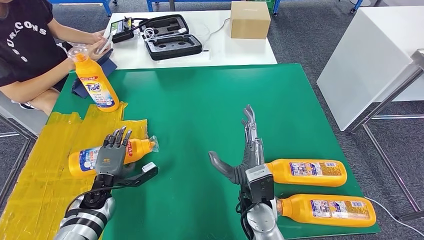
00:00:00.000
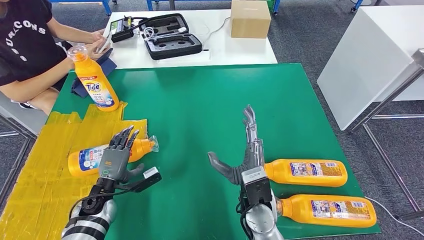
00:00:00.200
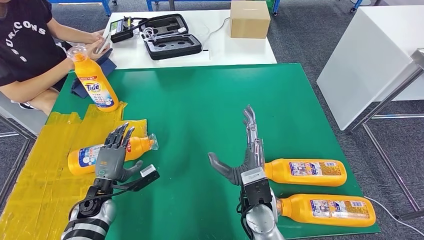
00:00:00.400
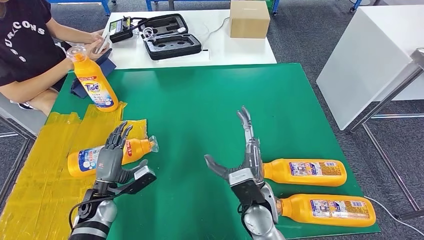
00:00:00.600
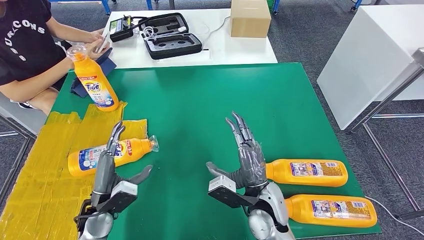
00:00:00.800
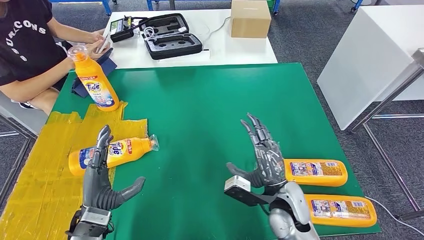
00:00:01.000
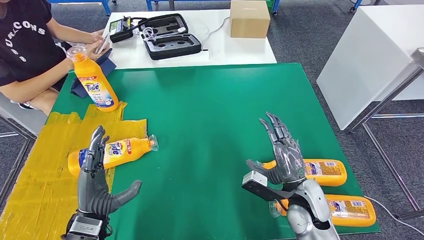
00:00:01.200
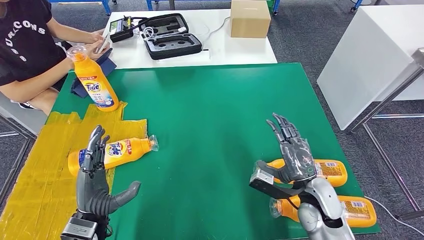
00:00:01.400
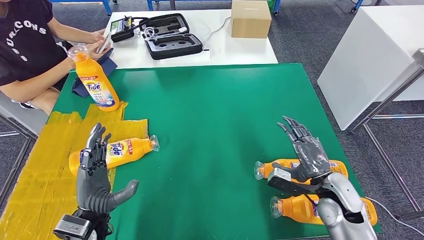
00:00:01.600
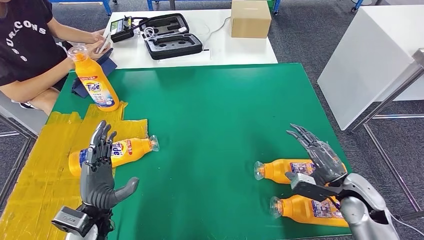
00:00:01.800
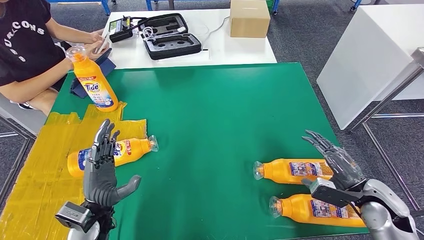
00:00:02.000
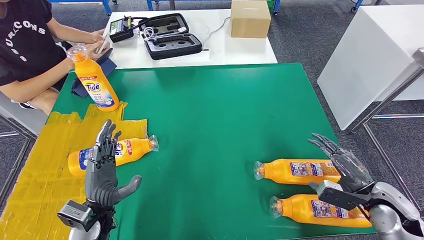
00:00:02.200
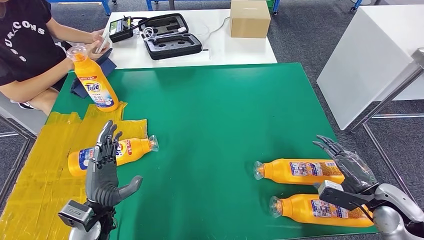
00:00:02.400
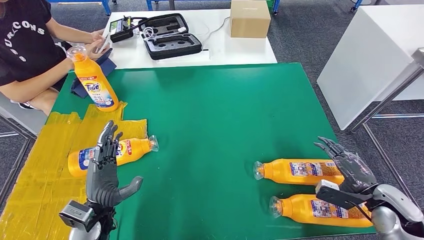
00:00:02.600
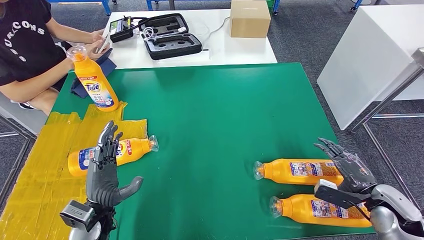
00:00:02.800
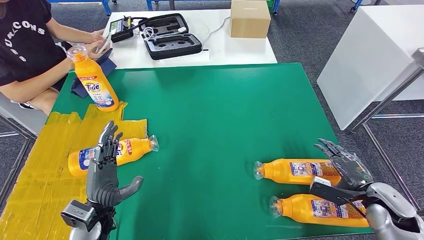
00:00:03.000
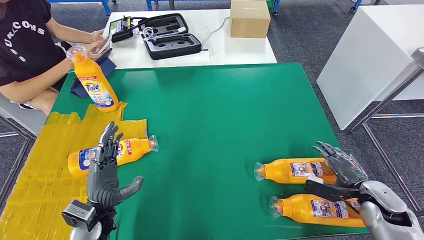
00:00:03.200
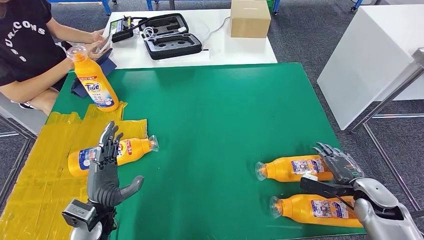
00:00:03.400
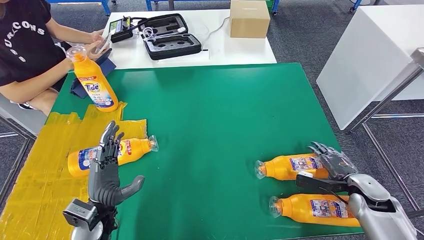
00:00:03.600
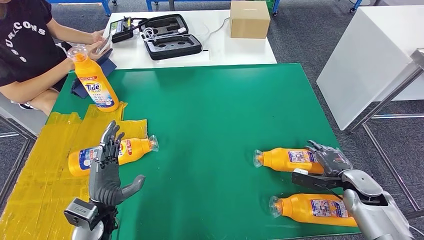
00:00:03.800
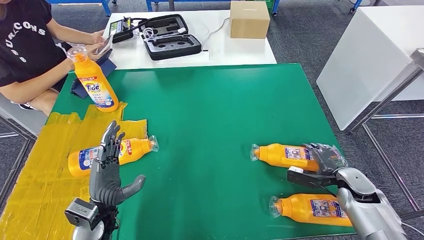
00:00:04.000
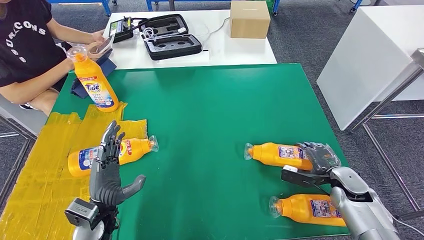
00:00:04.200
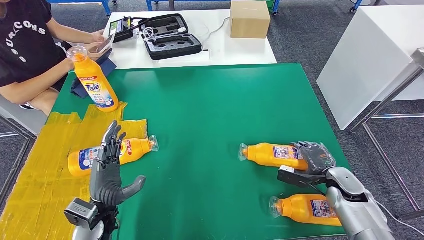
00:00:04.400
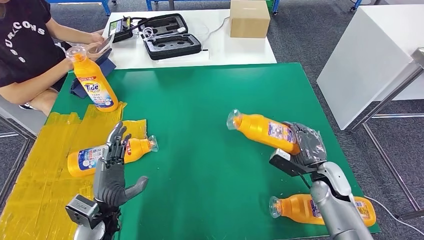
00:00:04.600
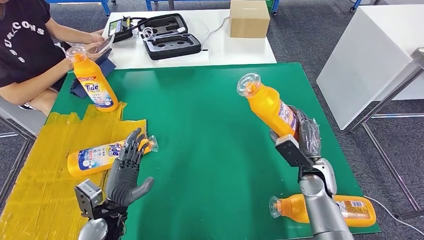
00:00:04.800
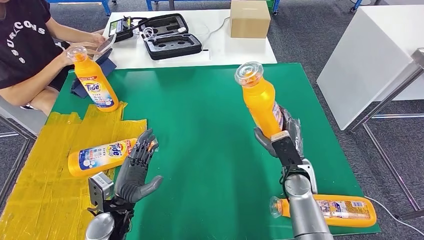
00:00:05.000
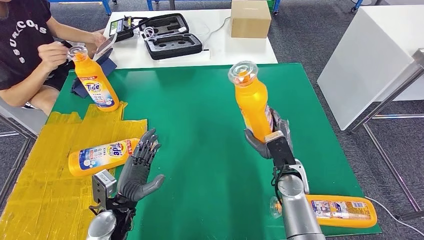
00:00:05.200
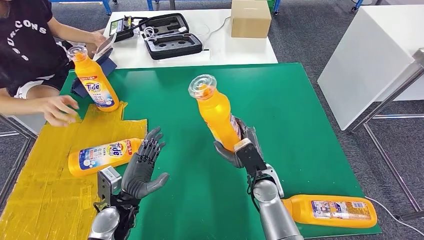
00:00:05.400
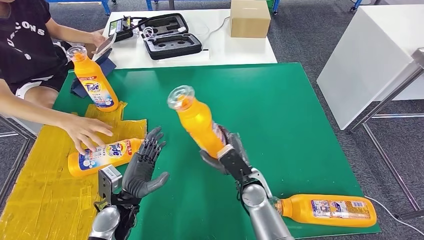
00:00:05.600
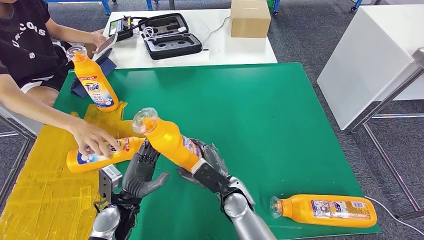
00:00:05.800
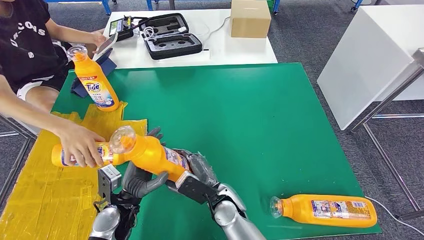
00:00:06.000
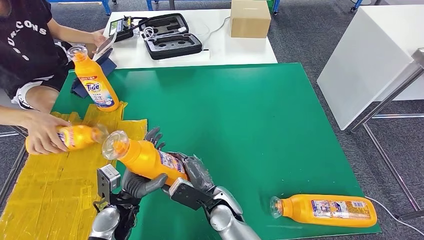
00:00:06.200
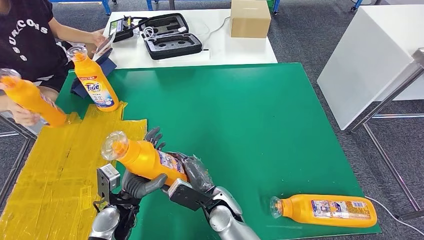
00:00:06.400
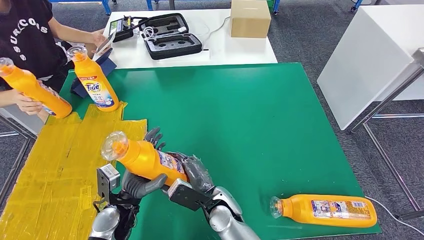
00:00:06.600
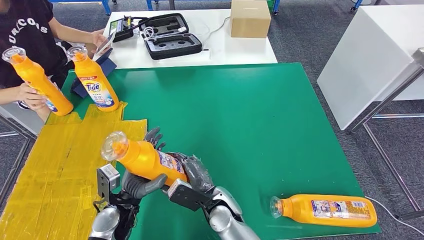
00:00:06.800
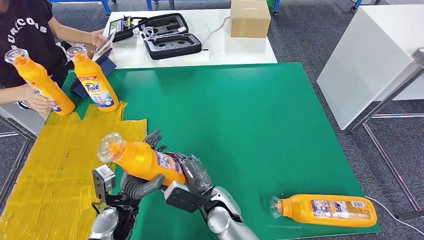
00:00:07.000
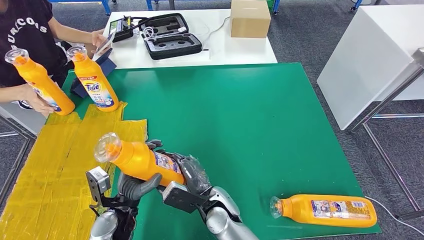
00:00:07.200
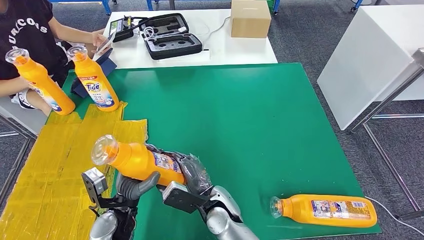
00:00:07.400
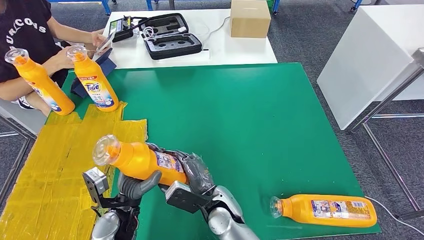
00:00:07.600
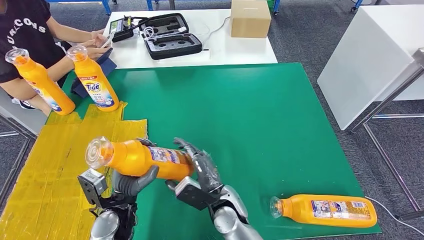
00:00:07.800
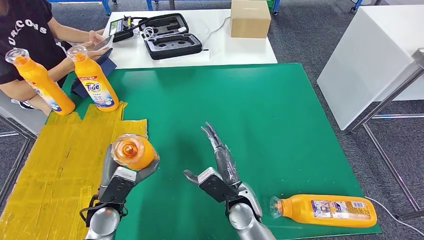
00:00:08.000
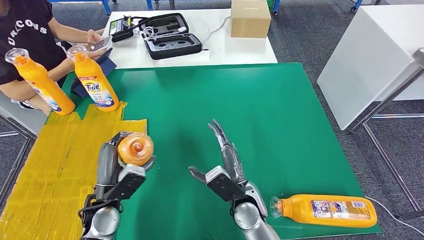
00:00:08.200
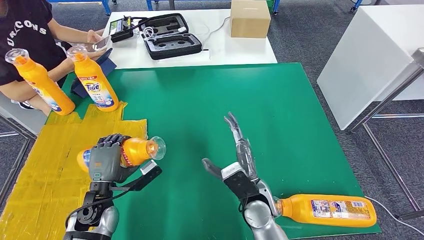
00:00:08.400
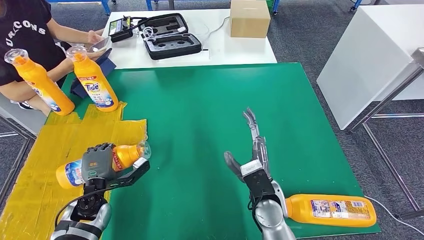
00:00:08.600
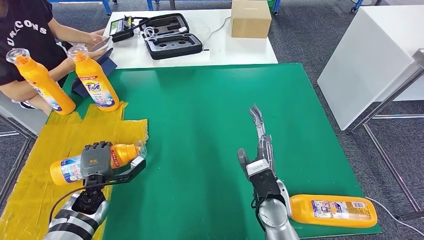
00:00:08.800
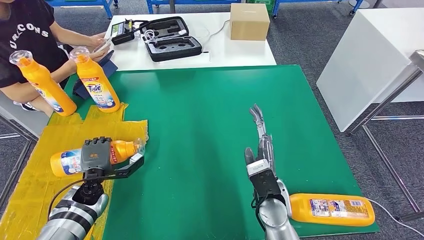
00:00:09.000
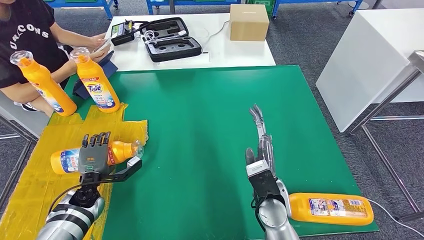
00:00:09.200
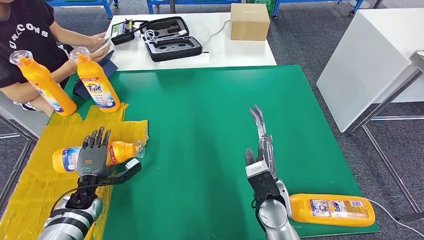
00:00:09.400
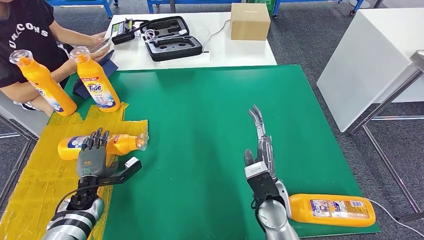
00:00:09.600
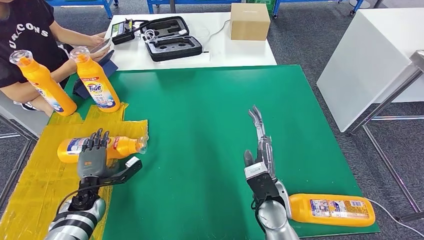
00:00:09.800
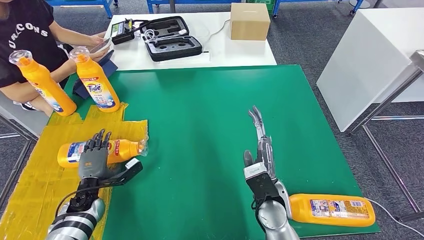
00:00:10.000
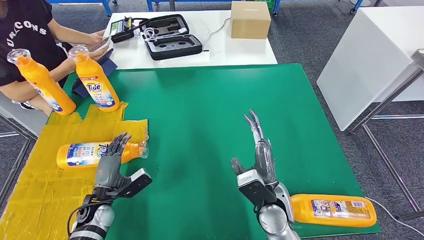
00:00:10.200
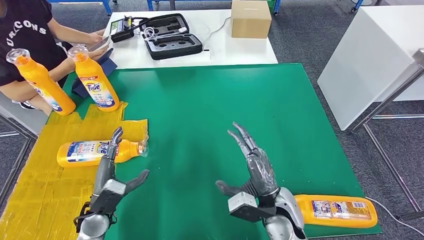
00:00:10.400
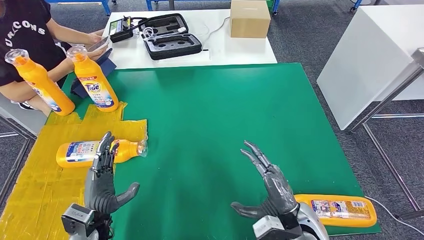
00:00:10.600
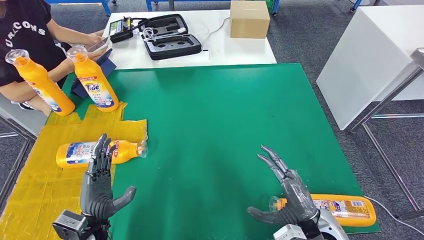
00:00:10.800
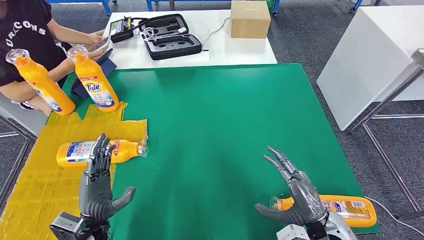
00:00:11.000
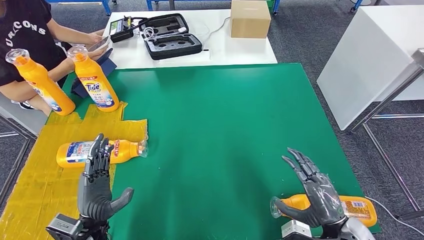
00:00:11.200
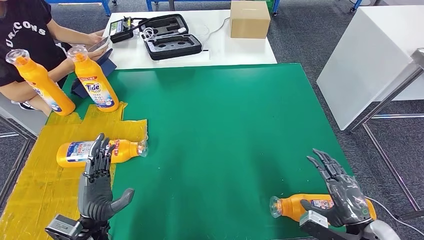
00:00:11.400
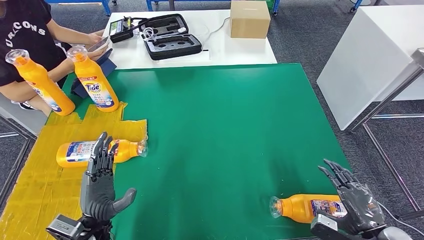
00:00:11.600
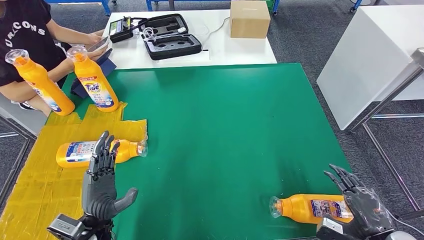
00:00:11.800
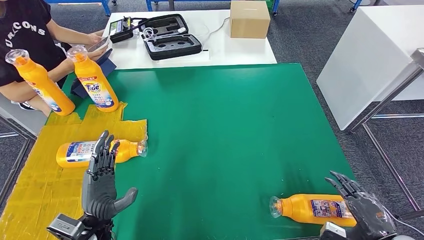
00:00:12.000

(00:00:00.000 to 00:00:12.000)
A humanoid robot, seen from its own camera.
Step, 00:00:00.800 - 00:00:07.200: Pick up the bottle from the table.
Step, 00:00:07.400 - 00:00:10.000: Flip the bottle to face forward.
00:00:00.000 - 00:00:01.600: The left hand shifts about 15 cm backward and upward. The right hand shifts roughly 20 cm to the right.
00:00:01.600 - 00:00:03.000: The right hand travels to the right by some 15 cm.
00:00:03.000 - 00:00:04.400: The right hand moves forward and to the left, approximately 10 cm.
00:00:06.000 - 00:00:07.600: The hands stay close to where they were, moving slightly.
00:00:10.400 - 00:00:12.000: The right hand travels to the right and backward by approximately 25 cm; the left hand ends up some 5 cm from where it was.

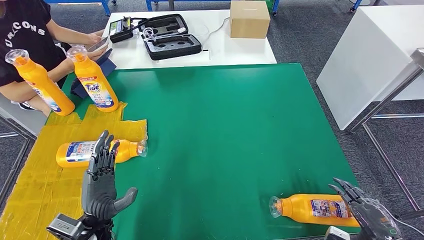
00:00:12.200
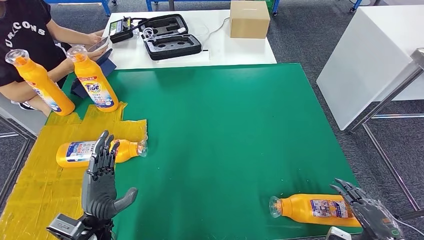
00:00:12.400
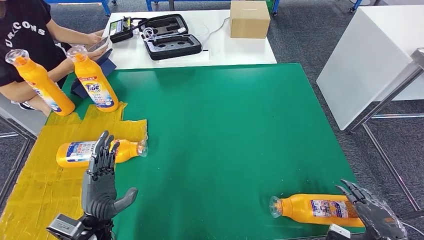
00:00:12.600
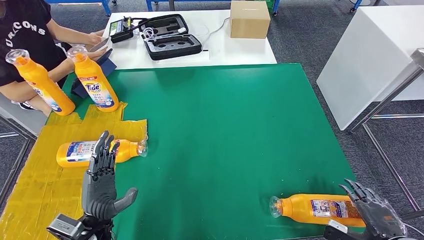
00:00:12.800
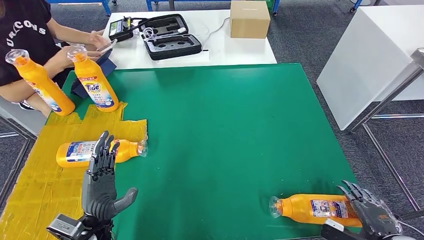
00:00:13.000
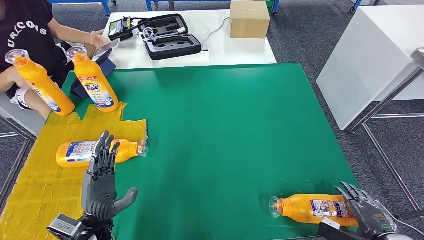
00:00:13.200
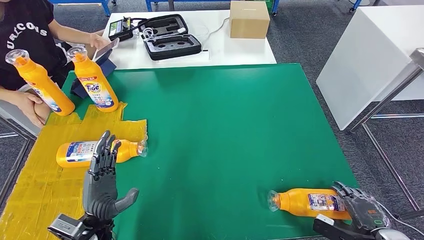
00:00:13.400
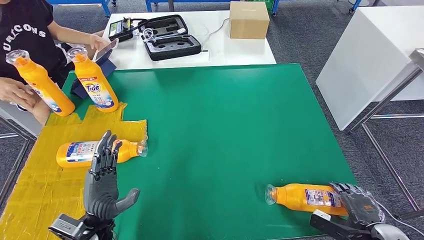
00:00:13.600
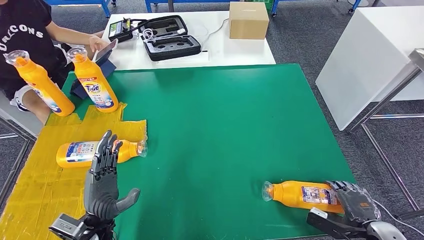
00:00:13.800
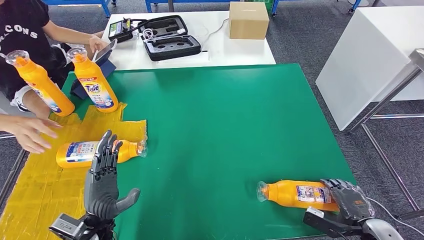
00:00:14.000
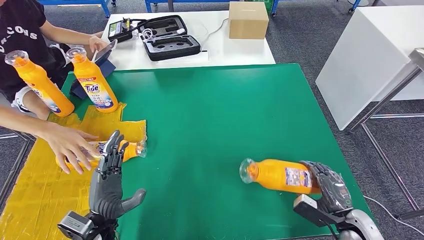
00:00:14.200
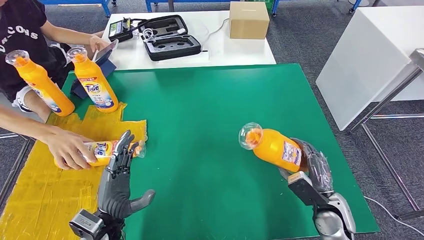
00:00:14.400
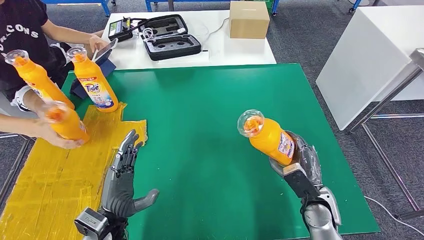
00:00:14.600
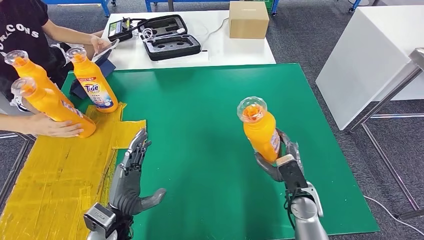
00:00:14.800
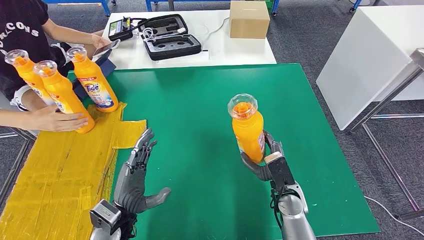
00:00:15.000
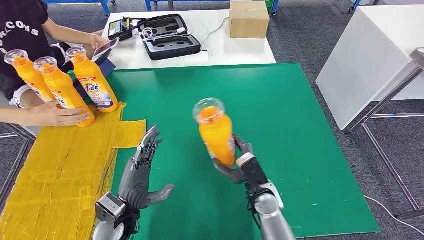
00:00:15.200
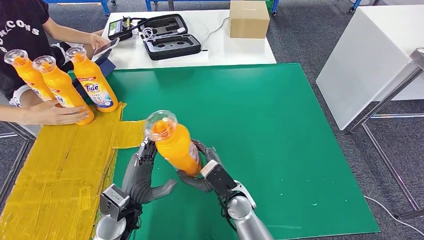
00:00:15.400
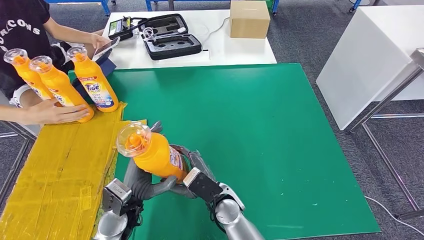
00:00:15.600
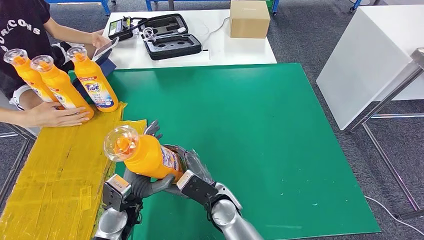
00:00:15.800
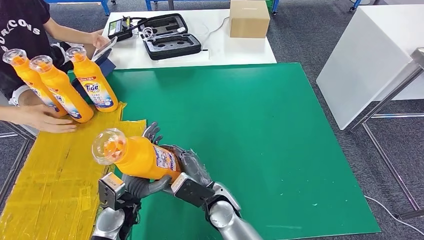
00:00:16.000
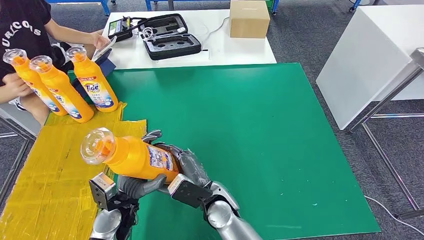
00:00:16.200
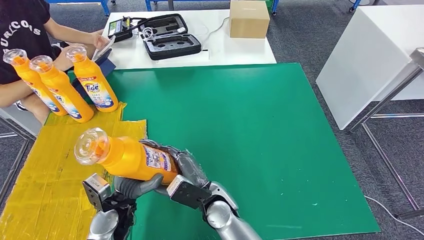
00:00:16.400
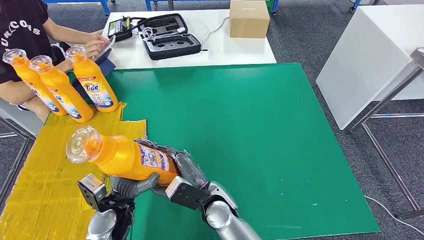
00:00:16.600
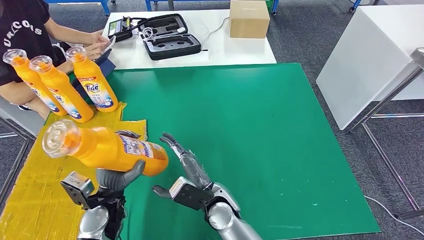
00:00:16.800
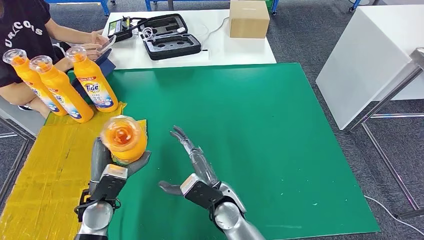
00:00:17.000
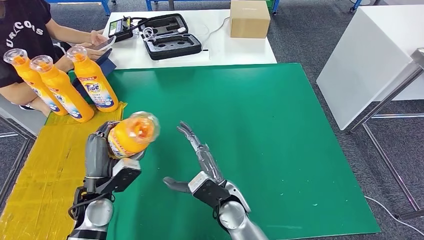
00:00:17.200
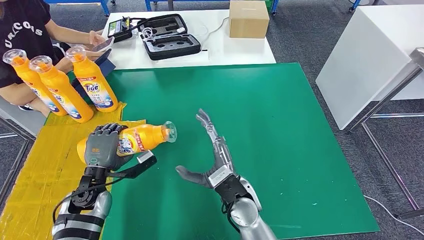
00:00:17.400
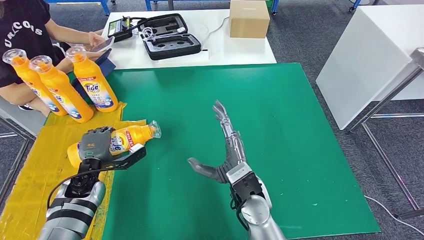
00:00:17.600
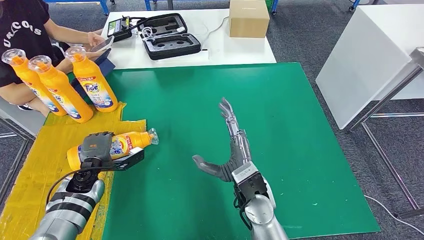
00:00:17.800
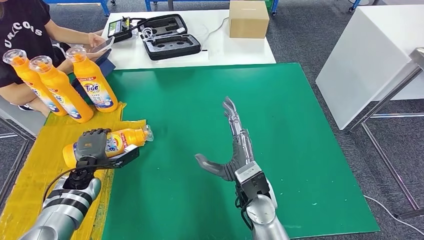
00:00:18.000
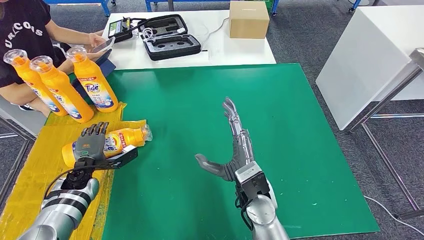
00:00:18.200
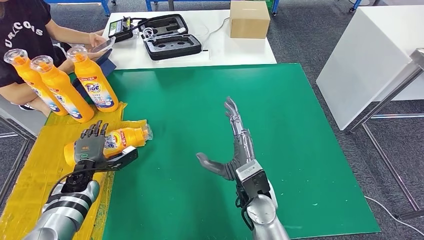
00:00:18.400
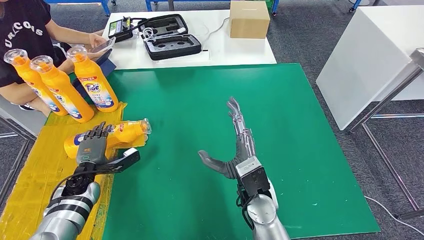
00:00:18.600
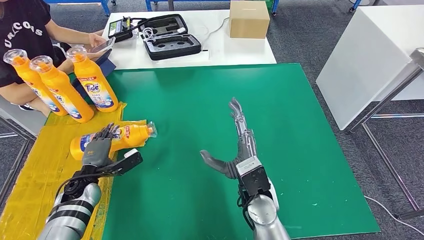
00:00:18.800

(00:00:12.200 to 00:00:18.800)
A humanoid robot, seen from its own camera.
Step, 00:00:12.200 - 00:00:15.600: Pick up the bottle from the table.
Step, 00:00:15.800 - 00:00:18.800: Flip the bottle to face forward.
00:00:12.200 - 00:00:13.800: The right hand moves downward, about 5 cm.
00:00:15.400 - 00:00:17.200: The left hand is displaced to the left by about 5 cm.
00:00:17.200 - 00:00:18.800: The left hand goes some 15 cm to the left, downward and forward; the right hand goes approximately 5 cm to the right.
